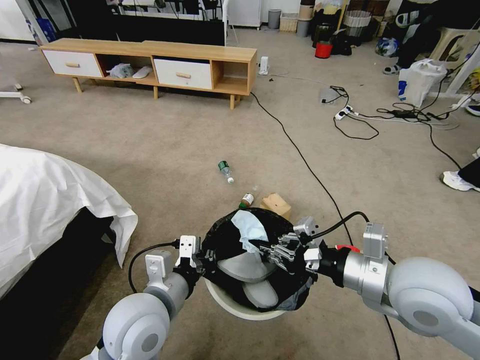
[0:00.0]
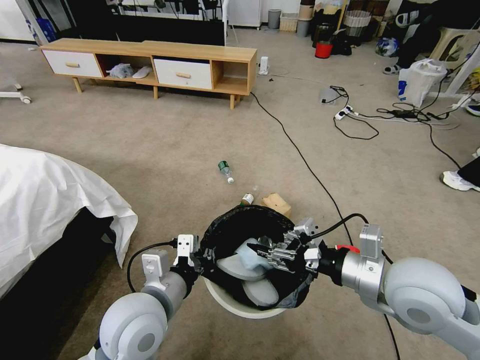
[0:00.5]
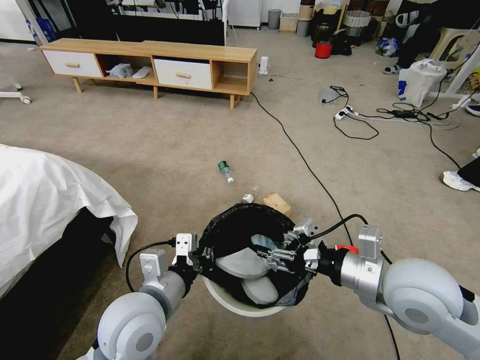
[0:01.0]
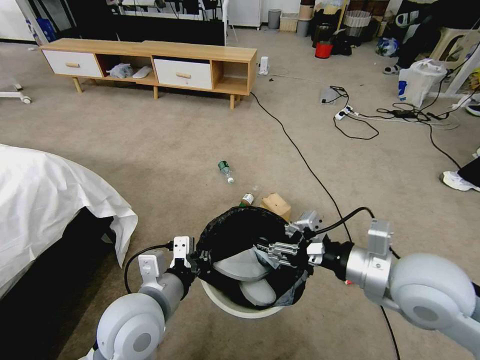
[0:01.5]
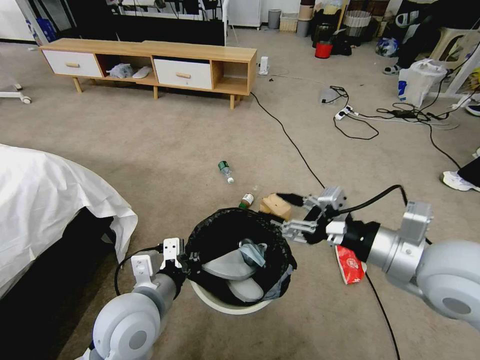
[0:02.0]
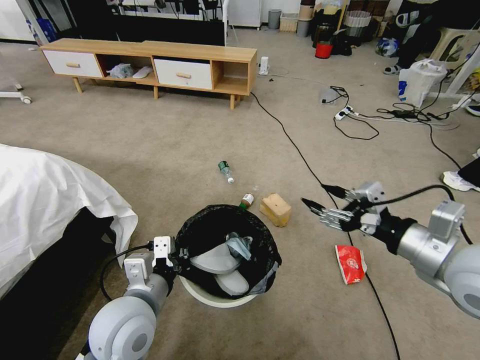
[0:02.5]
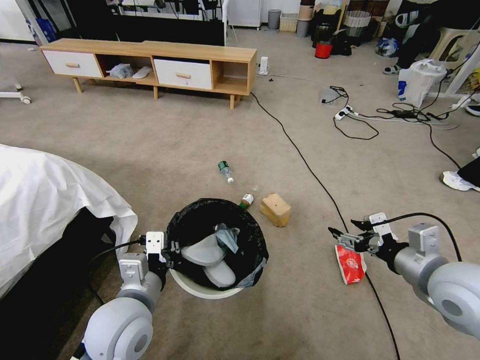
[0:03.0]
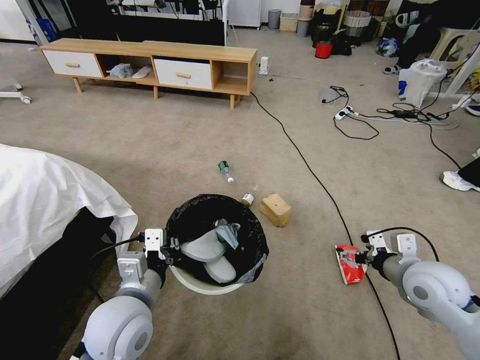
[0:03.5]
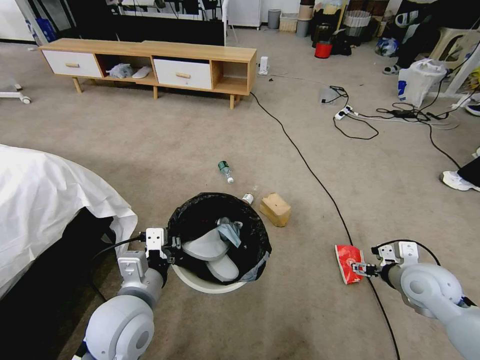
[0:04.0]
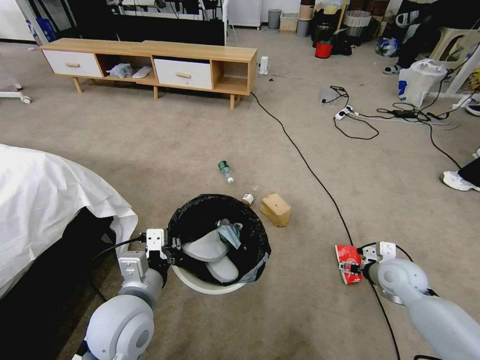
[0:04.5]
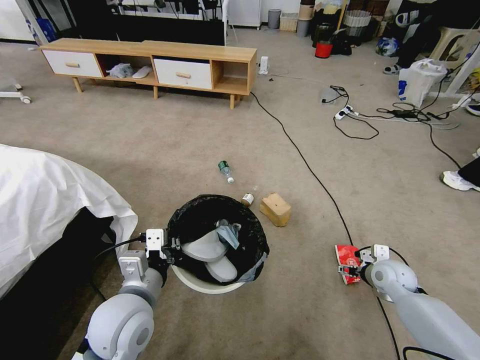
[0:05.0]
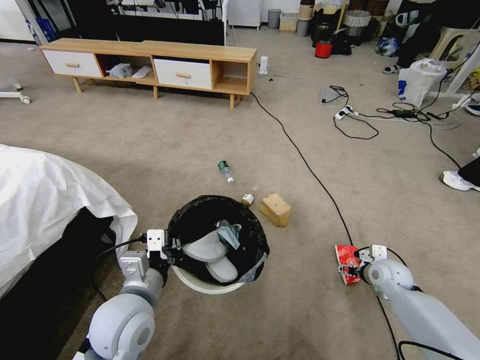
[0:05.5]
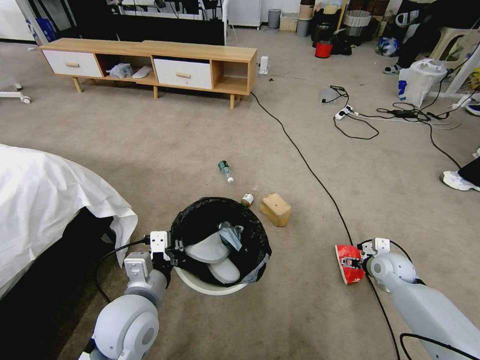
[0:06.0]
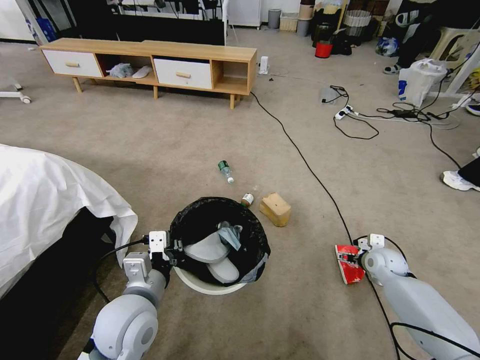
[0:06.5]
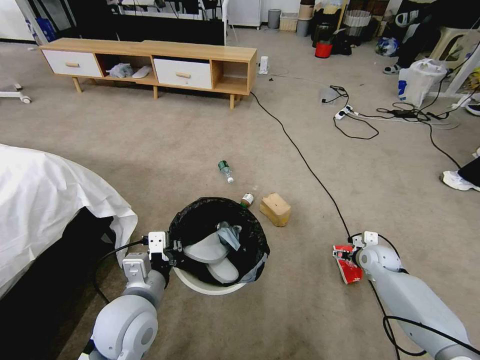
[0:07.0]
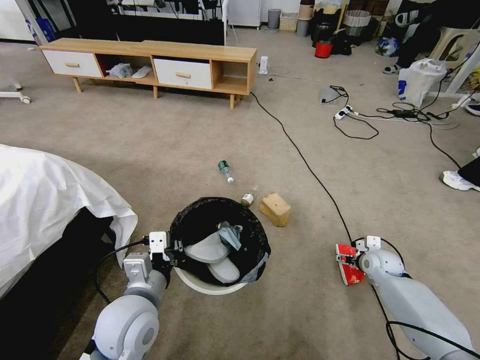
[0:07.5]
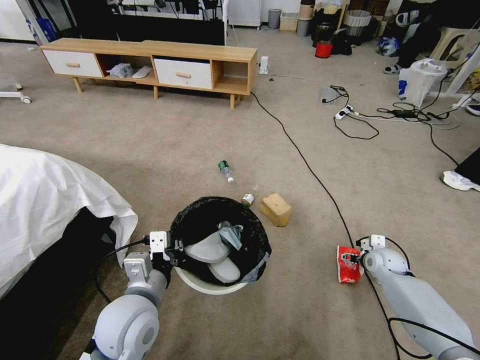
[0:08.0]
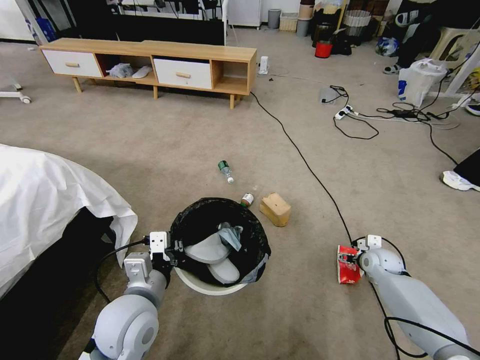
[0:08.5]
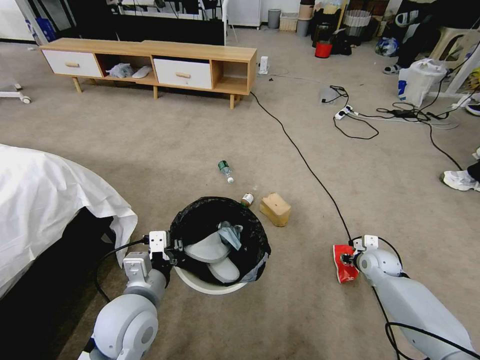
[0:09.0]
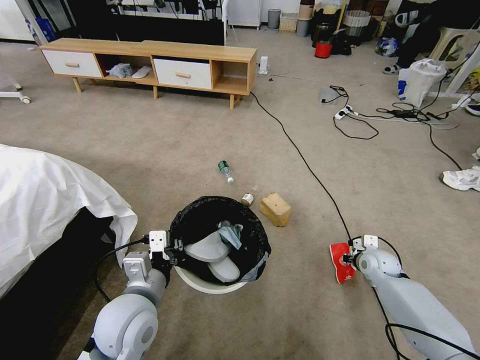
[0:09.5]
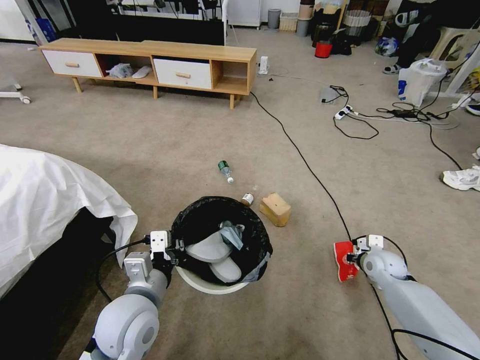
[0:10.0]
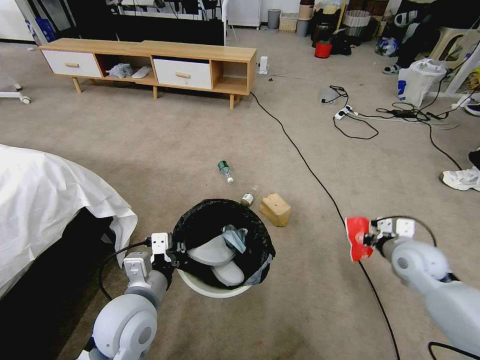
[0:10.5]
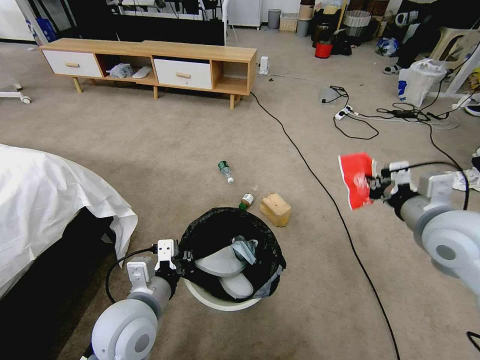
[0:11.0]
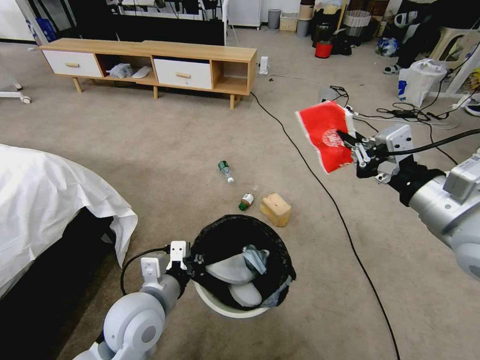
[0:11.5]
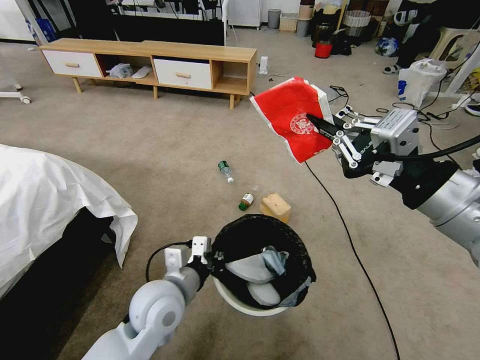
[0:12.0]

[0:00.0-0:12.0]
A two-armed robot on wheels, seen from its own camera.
Task of the whole recording: Pick up the trash bin and place the garbage on the floor into it.
0.0 to 2.0 s: The right gripper opens up.
2.0 to 4.0 s: The right gripper goes approximately 20 cm downward and to the right.
4.0 to 6.0 s: The right gripper is displaced downward and forward by some 15 cm.
6.0 to 8.0 s: The grippers stay close to where they were, moving slightly.
8.0 to 10.0 s: The right gripper closes.
10.0 to 12.0 s: The left gripper moves about 5 cm. The right gripper heads upward and backward, covering approximately 40 cm.

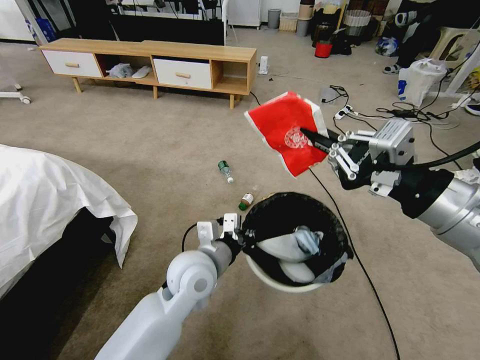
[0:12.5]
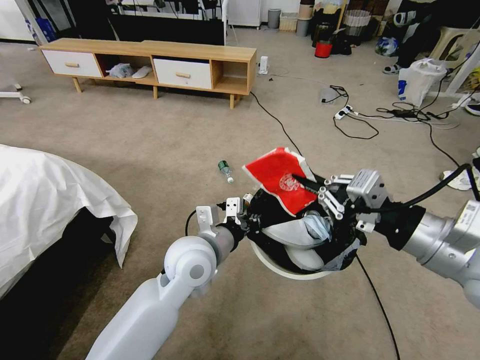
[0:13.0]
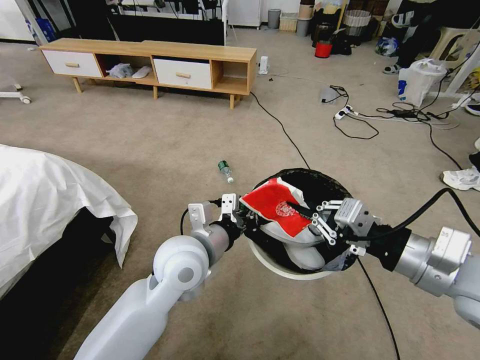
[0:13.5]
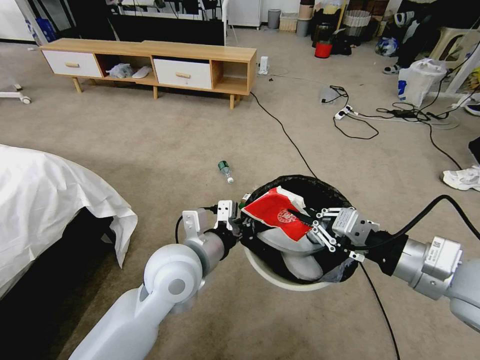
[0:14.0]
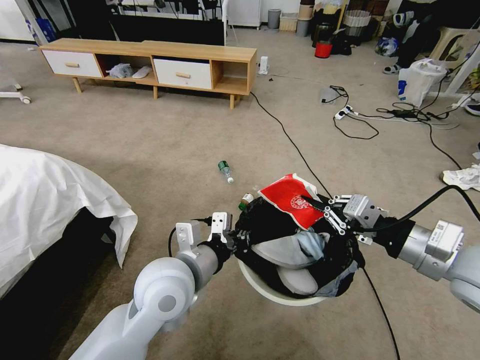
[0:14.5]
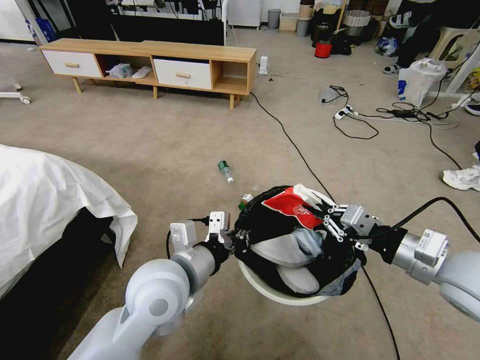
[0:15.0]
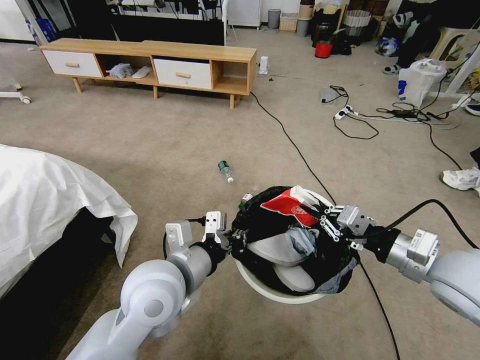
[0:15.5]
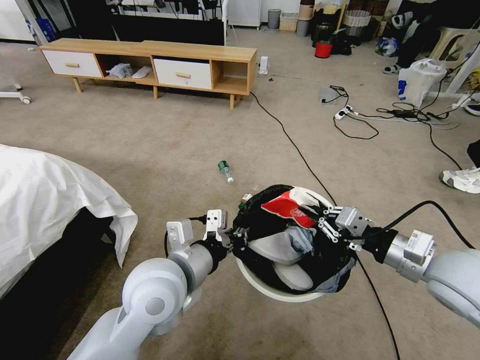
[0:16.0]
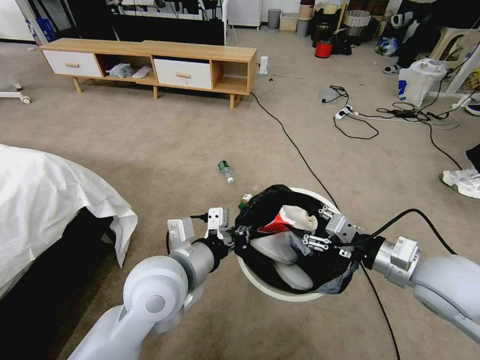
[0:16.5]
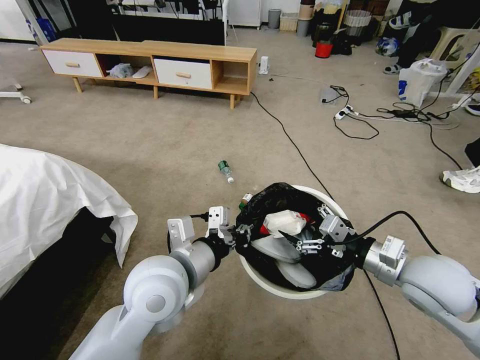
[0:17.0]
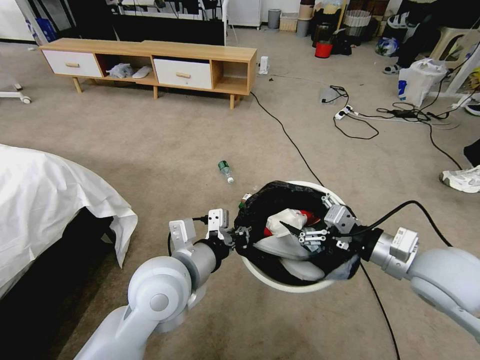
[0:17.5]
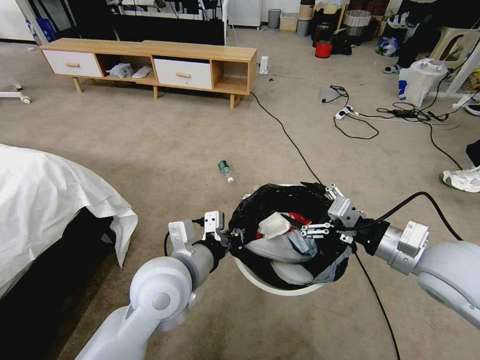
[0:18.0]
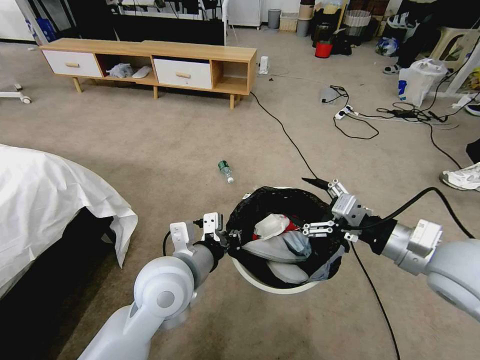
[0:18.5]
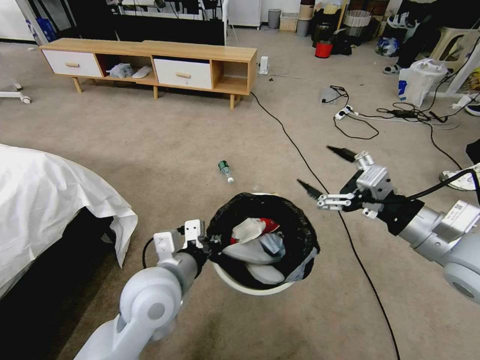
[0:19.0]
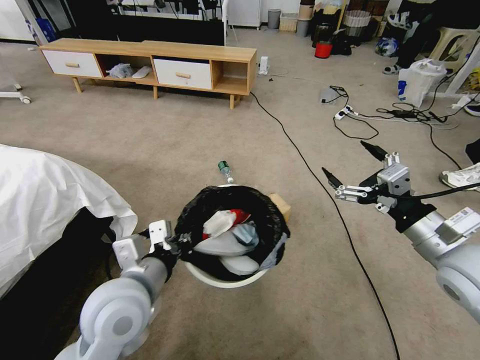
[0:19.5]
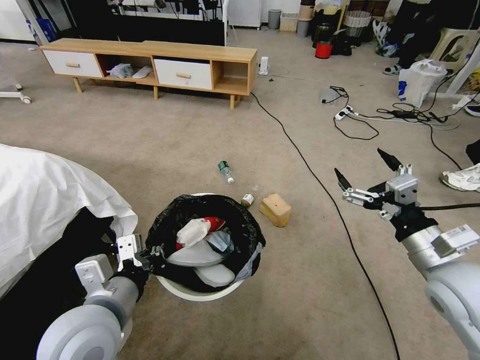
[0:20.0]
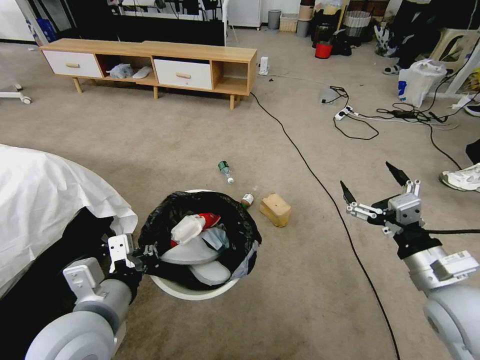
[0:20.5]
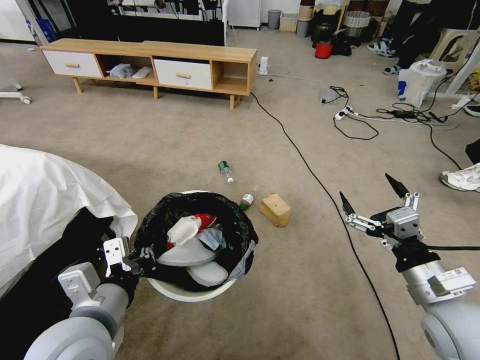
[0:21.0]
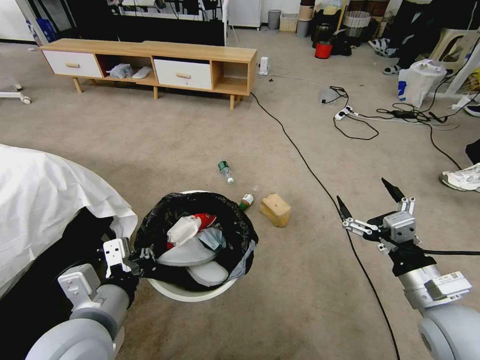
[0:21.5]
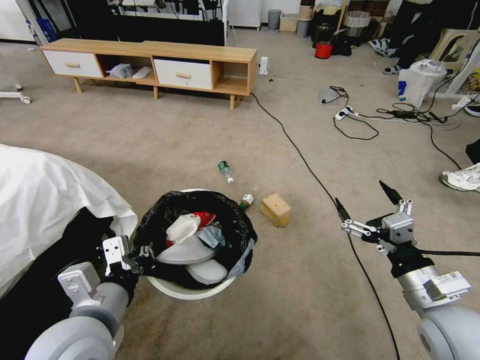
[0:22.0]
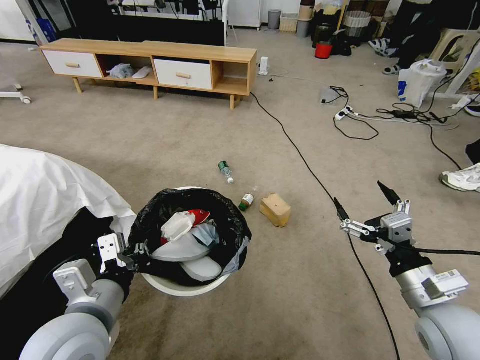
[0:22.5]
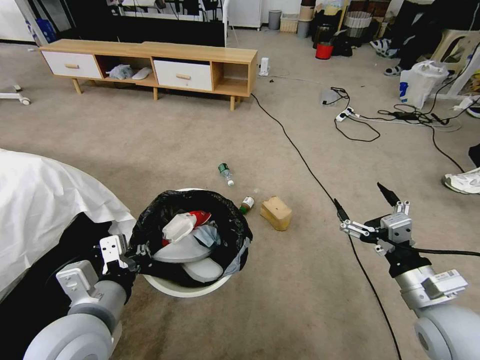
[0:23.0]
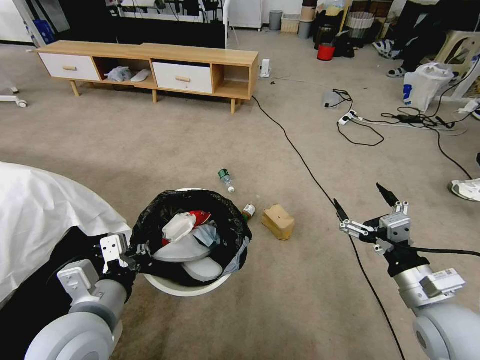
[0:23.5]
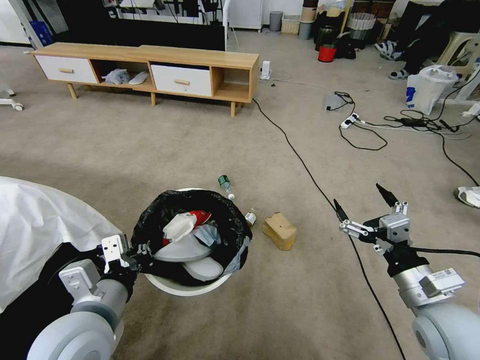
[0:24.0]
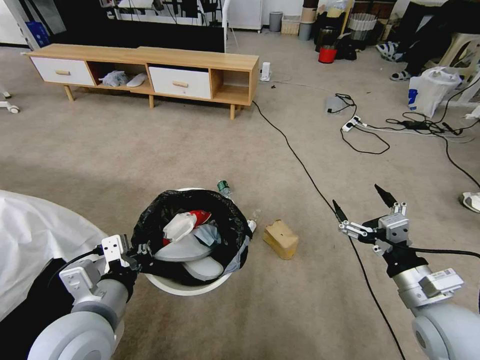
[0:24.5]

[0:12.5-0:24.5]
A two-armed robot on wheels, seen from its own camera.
Task of the whole recording: Pick up the trash bin and place the garbage on the floor into it.
12.5 to 14.5 s: The right gripper is displaced downward by roughly 10 cm, while the left gripper moves upward, approximately 5 cm.
14.5 to 16.5 s: The left gripper opens up. Meanwhile the right gripper moves downward, approximately 5 cm, and opens.
16.5 to 18.5 s: The left gripper closes up. Meanwhile the right gripper shifts some 5 cm upward.
18.5 to 20.5 s: The left gripper shifts roughly 15 cm to the left and backward; the right gripper is displaced downward by some 5 cm.
20.5 to 22.5 s: The grippers make only small movements.

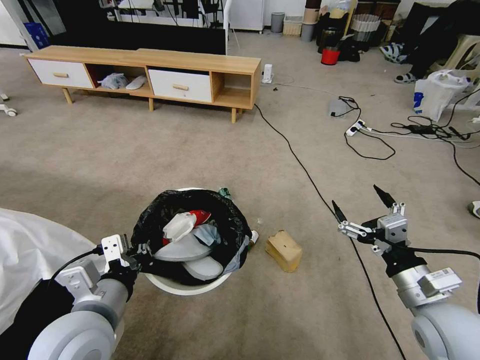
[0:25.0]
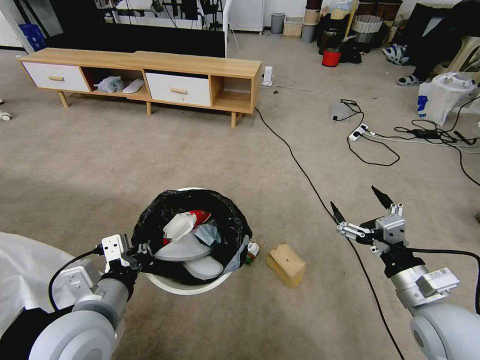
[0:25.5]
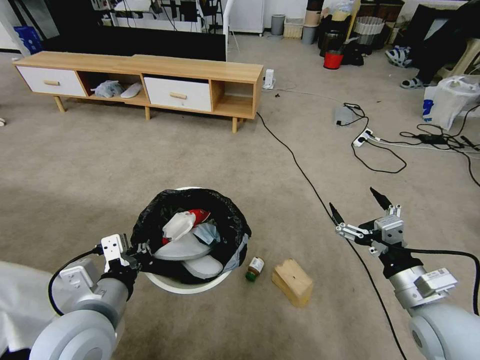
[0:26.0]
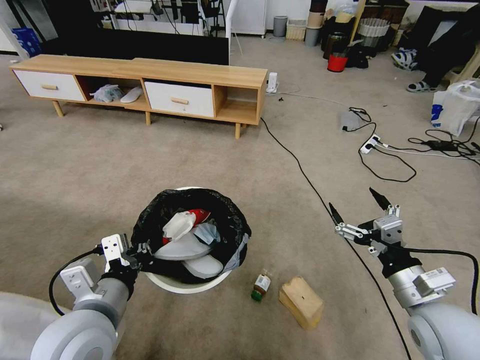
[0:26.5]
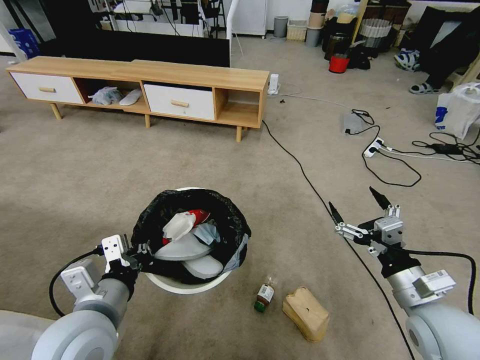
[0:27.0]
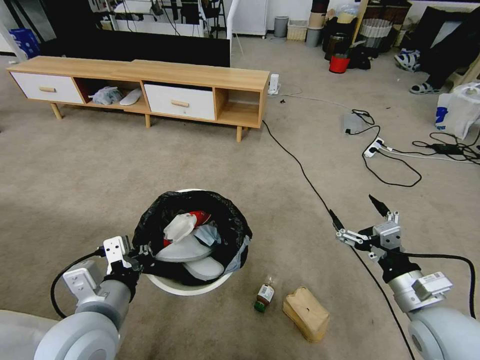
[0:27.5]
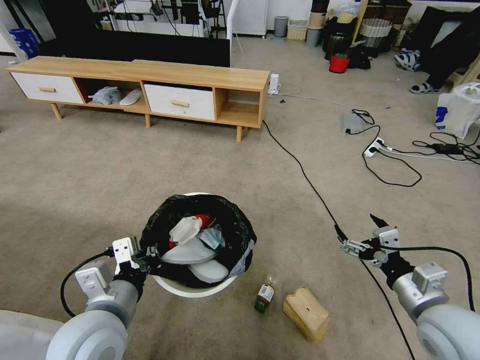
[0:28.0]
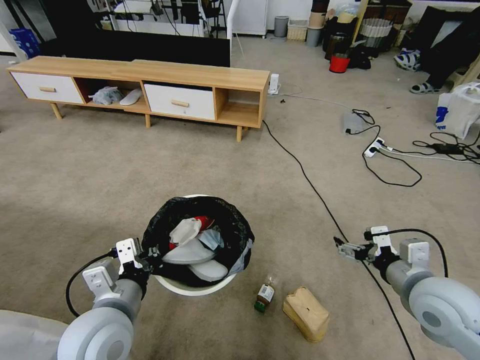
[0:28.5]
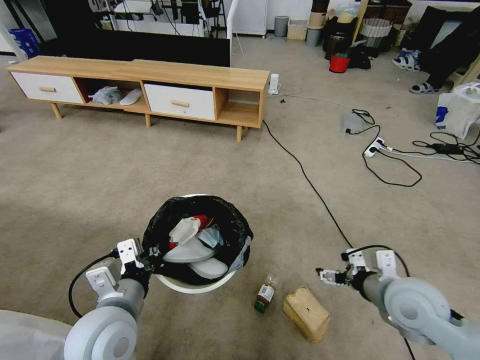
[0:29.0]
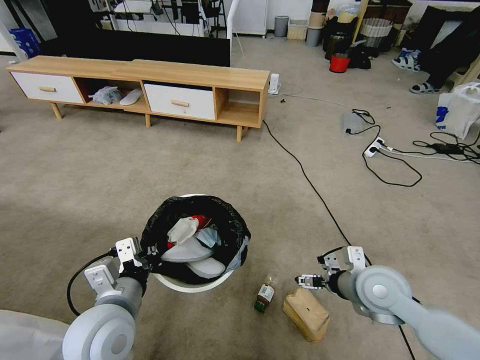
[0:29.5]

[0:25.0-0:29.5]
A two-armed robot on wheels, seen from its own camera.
Task of the whole recording: Pick up the trash bin and place the garbage on the floor into it.
27.0 to 29.5 s: The right gripper travels forward by some 10 cm.
